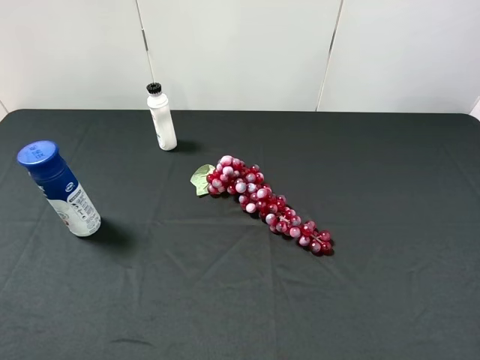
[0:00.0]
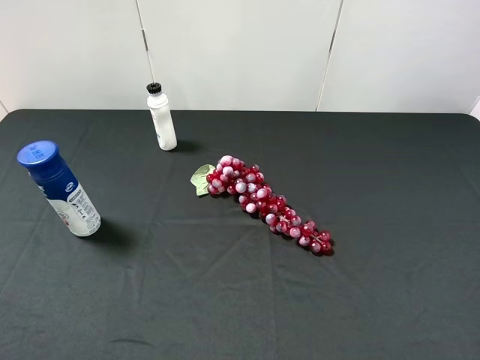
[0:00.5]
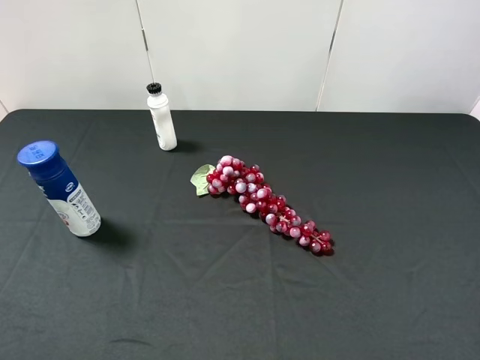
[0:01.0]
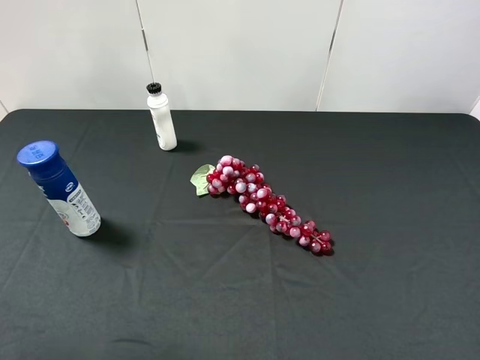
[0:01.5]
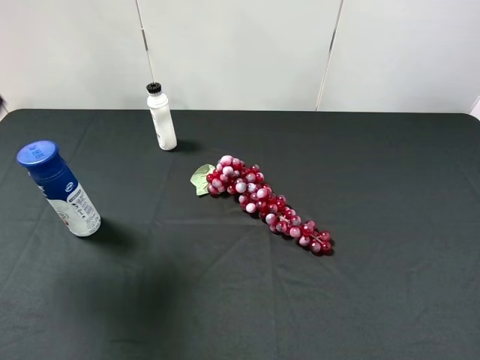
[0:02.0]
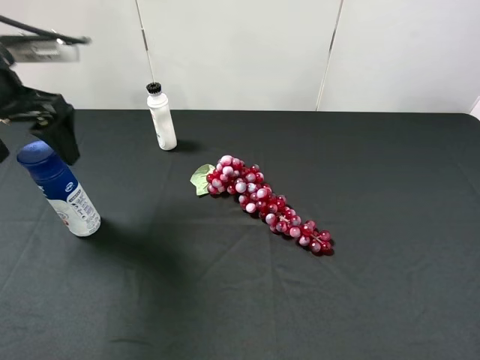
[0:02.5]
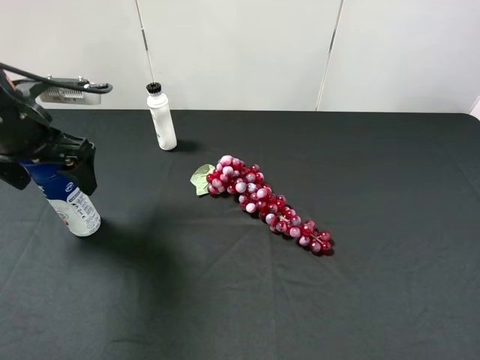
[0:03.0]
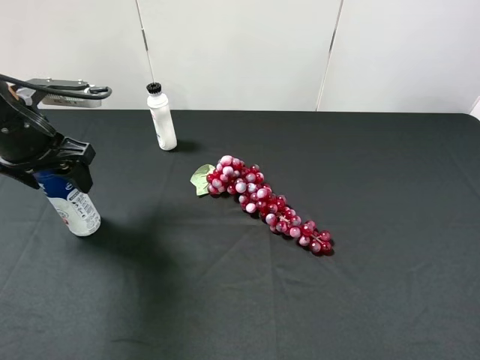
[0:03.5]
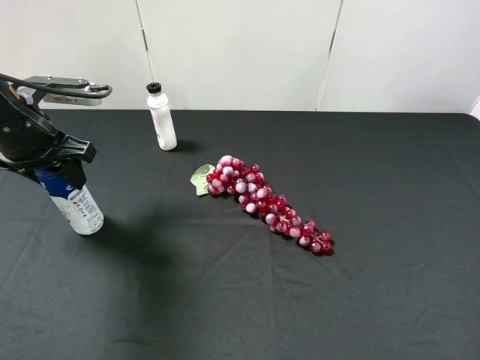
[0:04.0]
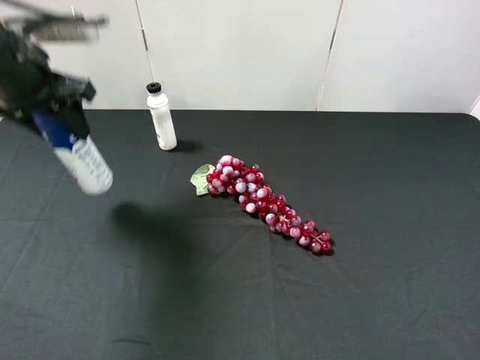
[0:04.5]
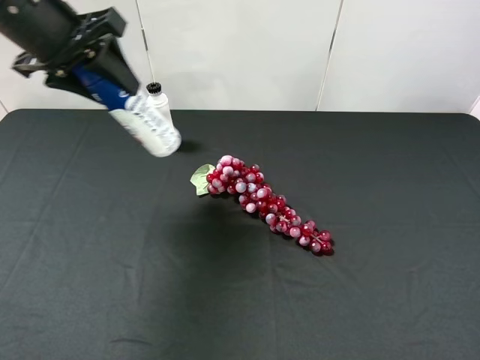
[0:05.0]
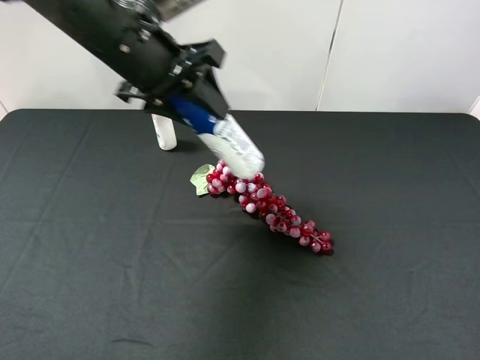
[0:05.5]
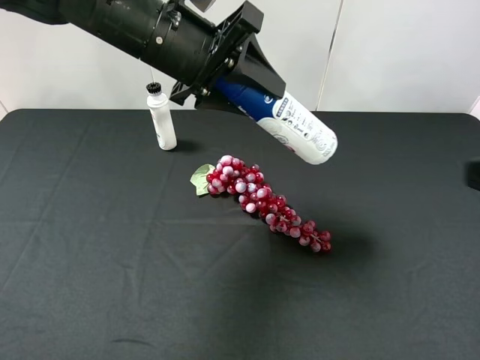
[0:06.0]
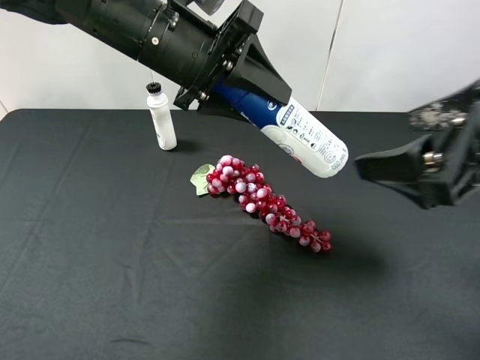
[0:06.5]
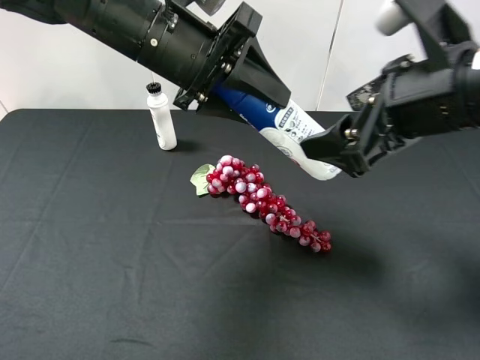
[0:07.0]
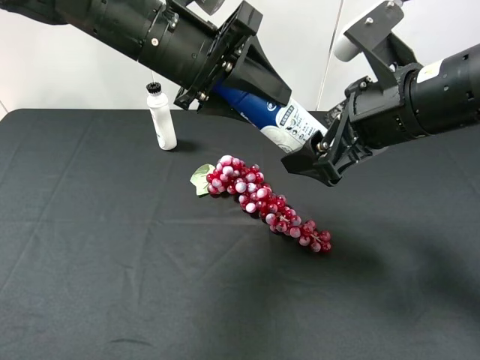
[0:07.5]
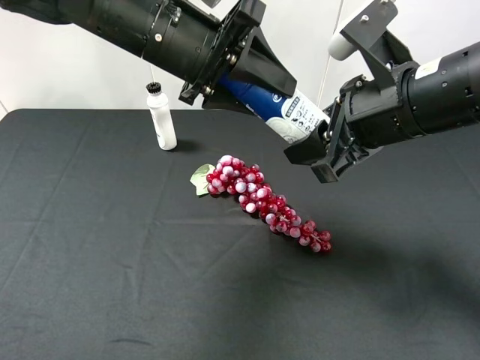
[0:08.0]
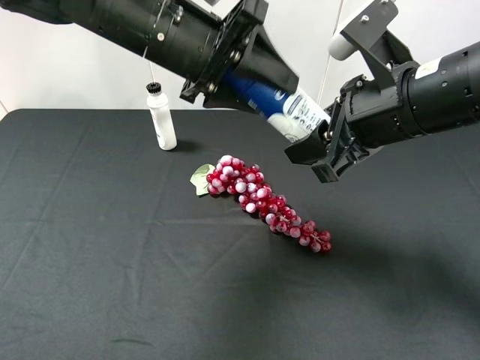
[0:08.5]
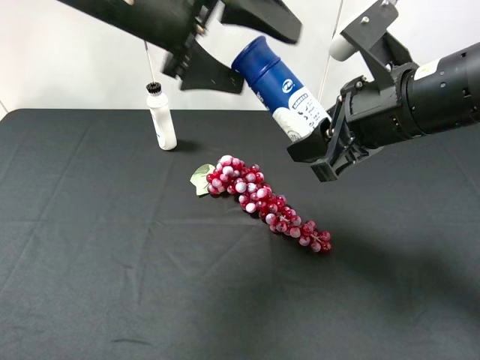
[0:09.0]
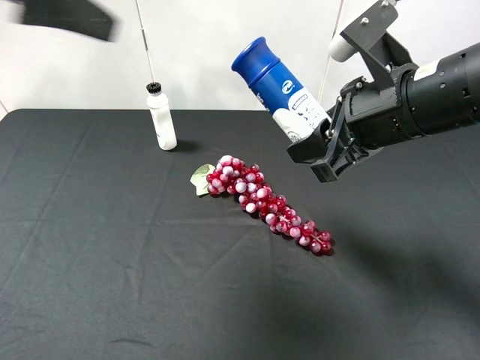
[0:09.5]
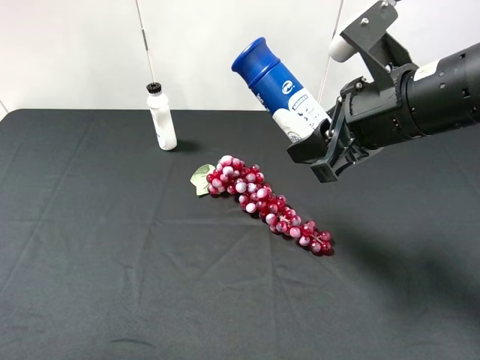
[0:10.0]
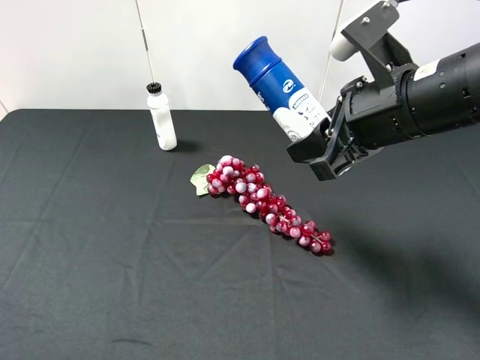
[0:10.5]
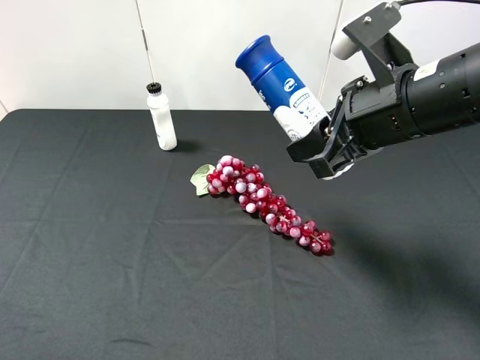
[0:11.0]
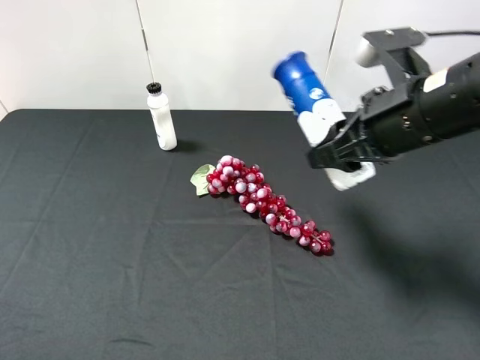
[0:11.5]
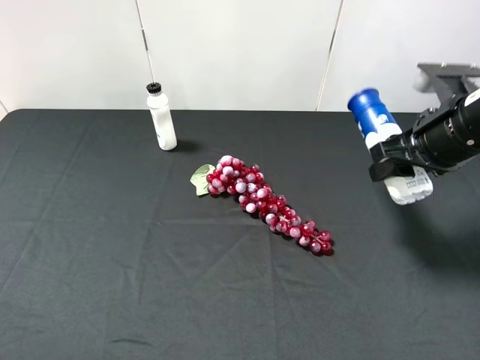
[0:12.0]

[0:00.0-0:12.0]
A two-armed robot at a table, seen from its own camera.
Task of the whole recording: use the left gripper to pick up the item and transfer it from the left gripper to the right gripper.
0:00.0 to 0:02.0: The left gripper goes roughly 25 cm forward.
0:02.0 to 0:04.0: The left gripper shifts approximately 15 cm downward, and closes up.
0:04.0 to 0:06.0: The left gripper moves to the right and upward, approximately 20 cm. The right gripper travels forward by roughly 10 cm.
0:06.0 to 0:08.0: The right gripper moves forward and to the left, roughly 15 cm, and closes.
0:08.0 to 0:10.0: The left gripper heads backward, to the left and upward, covering roughly 35 cm, and opens up.
0:10.0 to 0:12.0: The left gripper travels downward and backward by roughly 15 cm. The right gripper goes approximately 10 cm to the right.

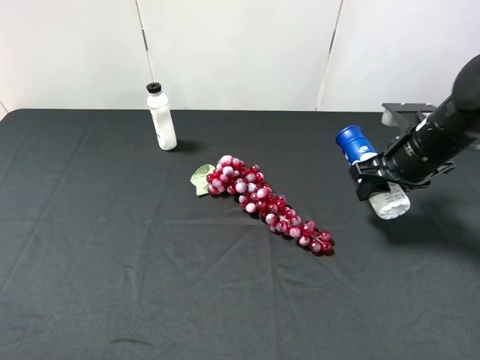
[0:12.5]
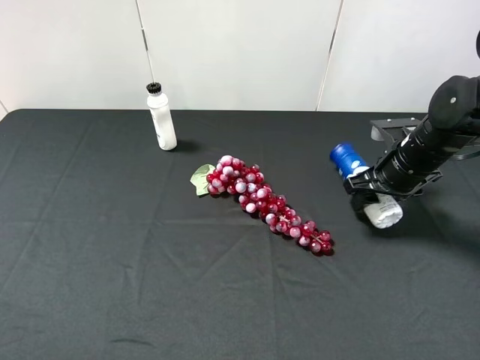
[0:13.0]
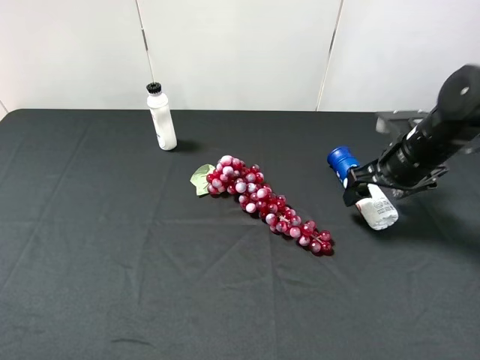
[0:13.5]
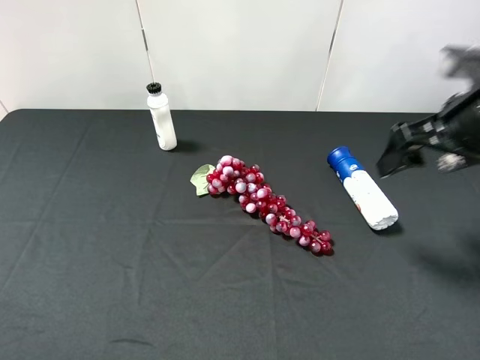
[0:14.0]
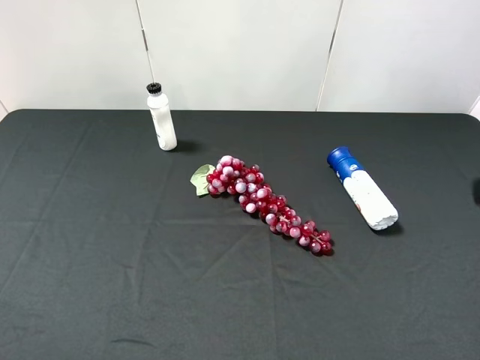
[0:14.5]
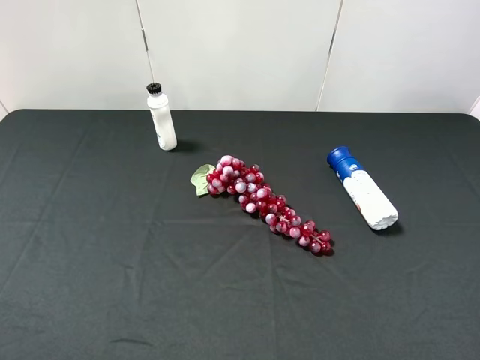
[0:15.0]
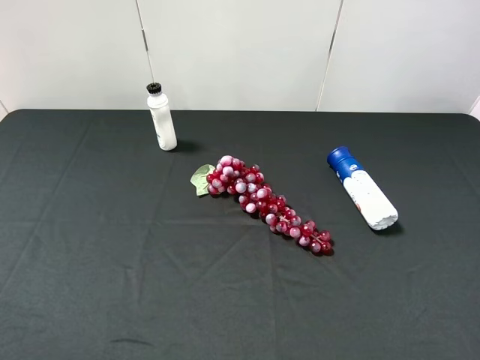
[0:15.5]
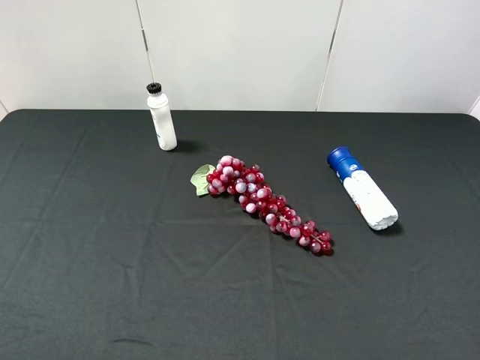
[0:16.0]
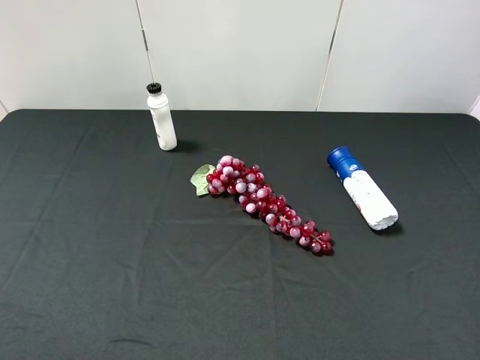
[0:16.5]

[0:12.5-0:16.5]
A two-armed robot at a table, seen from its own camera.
Task of the whole recording: use the left gripper to pick up the item and transfer it from the left gripper to the right gripper.
0:12.5 to 0:14.5: The right gripper is displaced backward and upward by some 25 cm, and opens.
